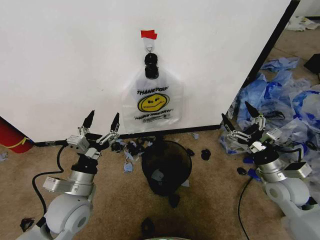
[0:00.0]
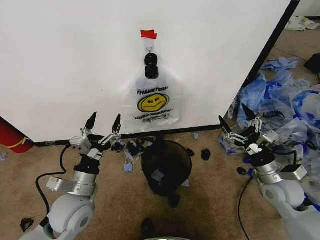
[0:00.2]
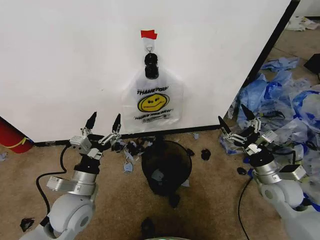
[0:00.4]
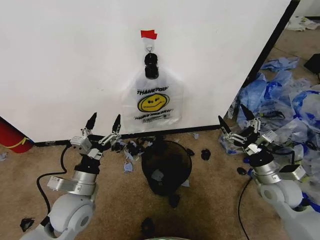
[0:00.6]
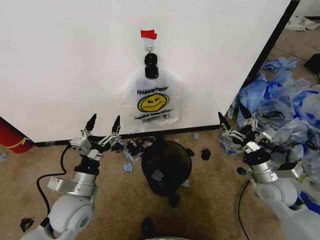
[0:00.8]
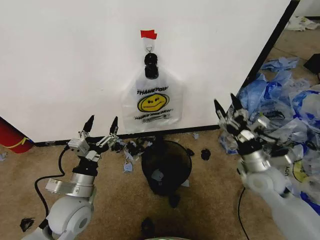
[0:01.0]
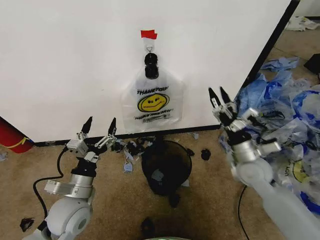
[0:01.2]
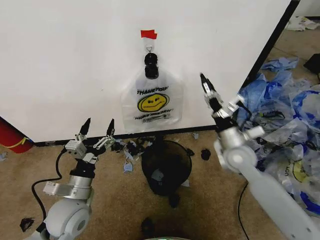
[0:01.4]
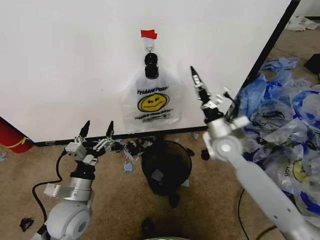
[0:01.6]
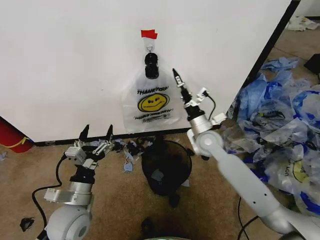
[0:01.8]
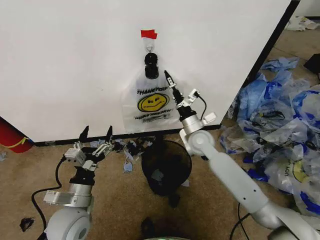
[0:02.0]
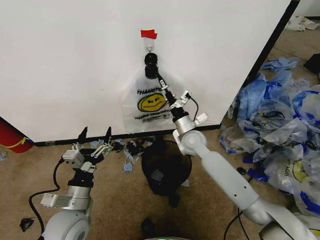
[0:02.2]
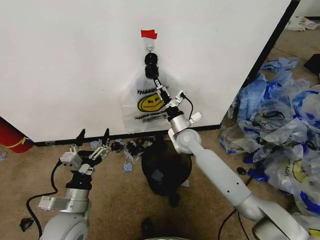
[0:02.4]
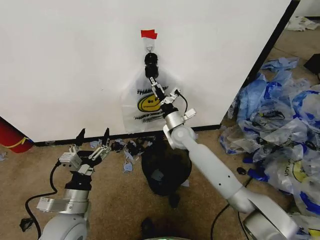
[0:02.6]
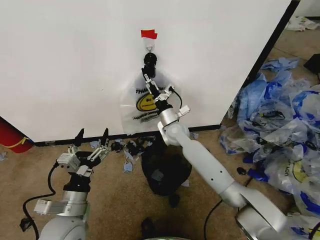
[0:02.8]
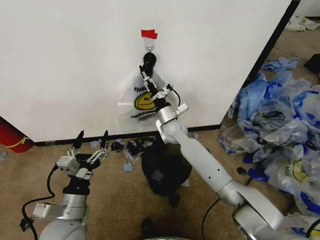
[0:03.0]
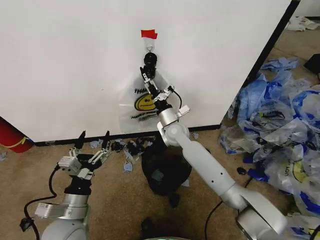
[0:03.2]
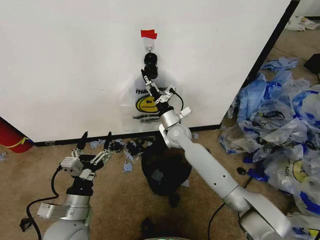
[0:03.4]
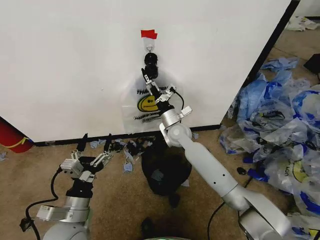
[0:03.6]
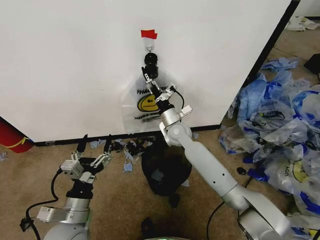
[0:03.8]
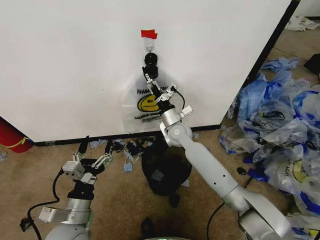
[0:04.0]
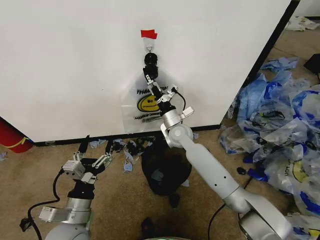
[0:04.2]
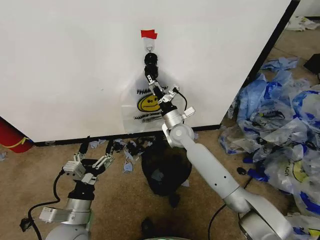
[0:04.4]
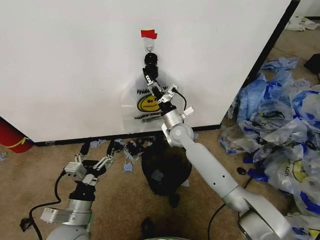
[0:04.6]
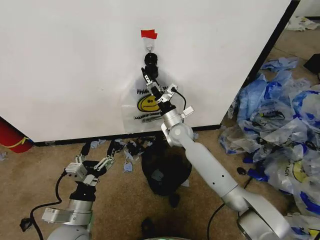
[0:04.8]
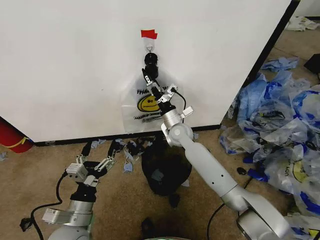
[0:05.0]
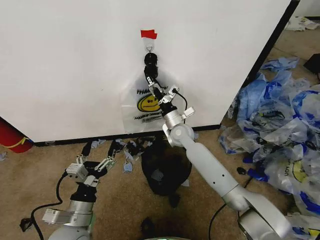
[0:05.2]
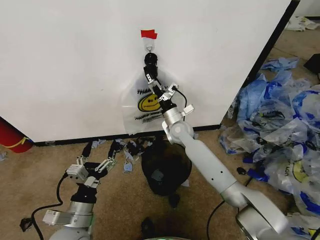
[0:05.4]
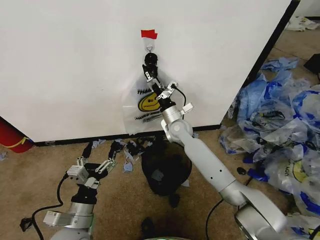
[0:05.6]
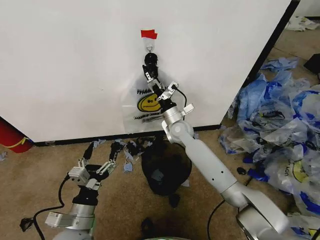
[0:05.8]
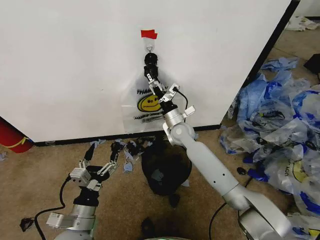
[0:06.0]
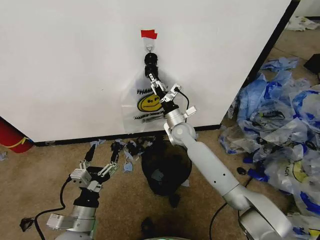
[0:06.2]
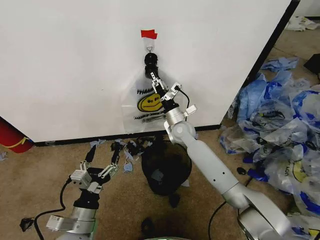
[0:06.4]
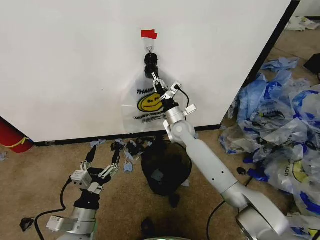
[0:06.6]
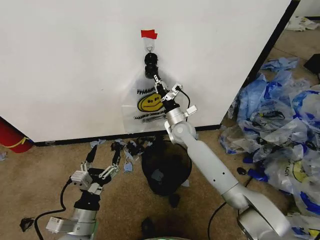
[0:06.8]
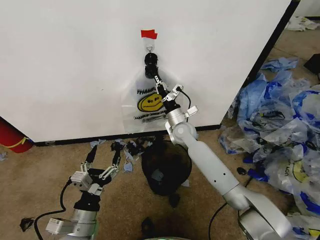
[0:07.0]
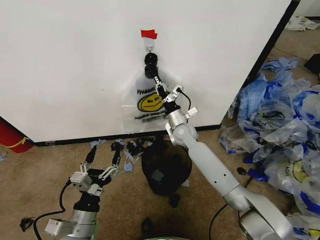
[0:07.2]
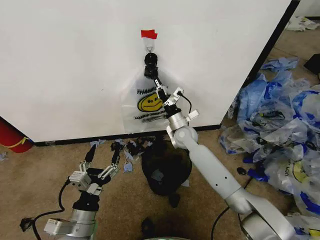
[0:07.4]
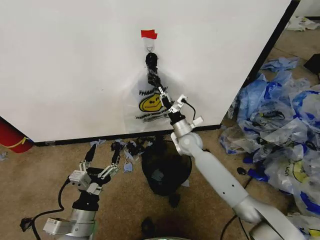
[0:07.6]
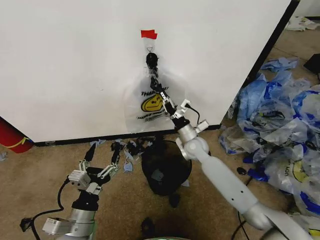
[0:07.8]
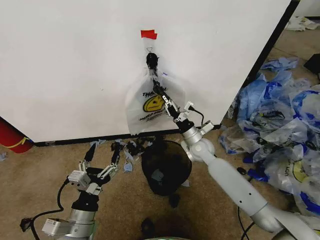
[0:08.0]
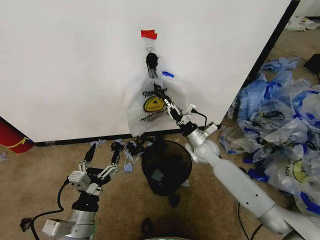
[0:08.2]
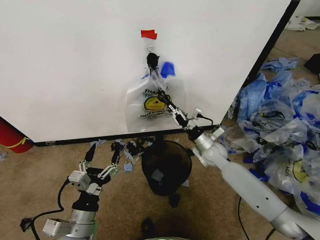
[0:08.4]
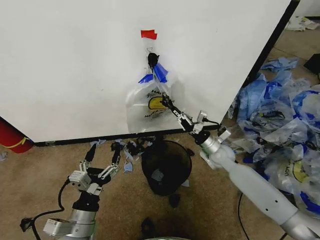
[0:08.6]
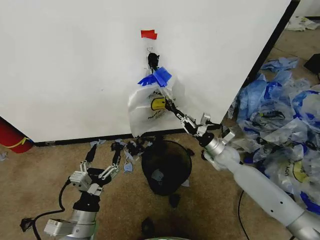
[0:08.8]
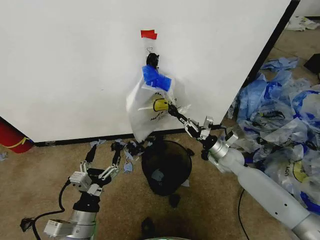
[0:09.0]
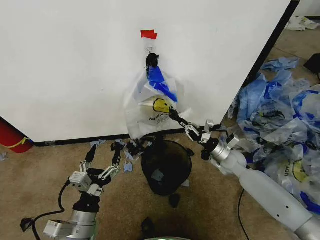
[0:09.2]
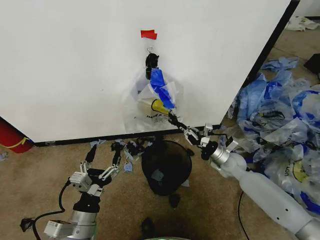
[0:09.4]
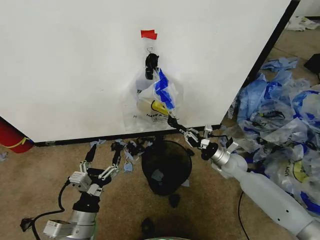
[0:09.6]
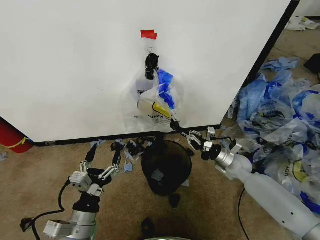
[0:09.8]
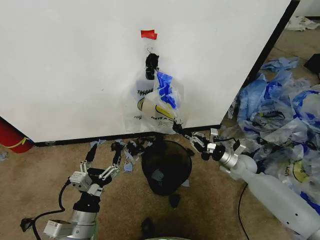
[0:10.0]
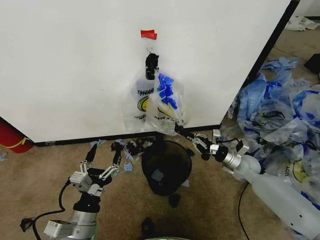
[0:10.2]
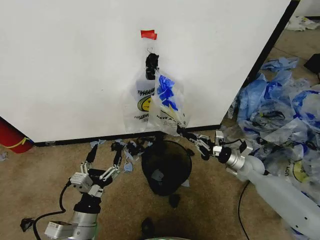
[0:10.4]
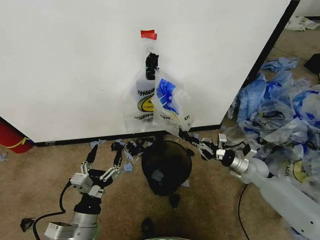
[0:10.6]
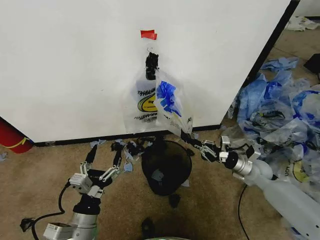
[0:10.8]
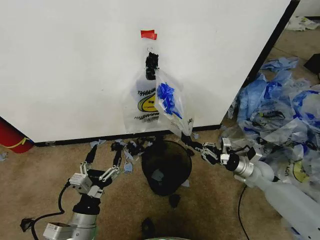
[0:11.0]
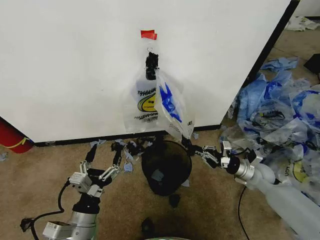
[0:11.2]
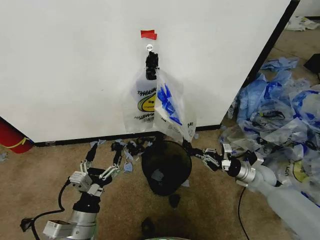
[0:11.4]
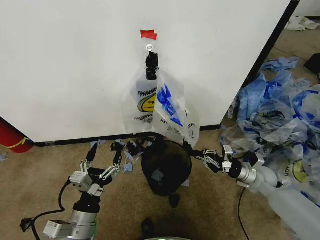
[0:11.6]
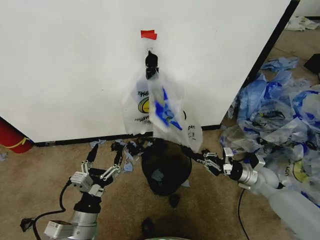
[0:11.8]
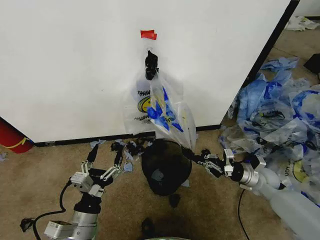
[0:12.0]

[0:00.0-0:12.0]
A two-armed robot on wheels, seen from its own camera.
Task of the whole recording: Pick up the garbage bag from the wall and place it over the trash bin.
0:01.6 to 0:03.0: The right gripper shifts about 20 cm to the left and forward.
0:03.0 to 0:06.0: The grippers move only a little.
0:06.0 to 0:07.6: The right gripper closes up.
0:07.6 to 0:09.0: The right gripper shifts roughly 15 cm to the right.
0:09.0 to 0:10.4: The right gripper is displaced to the right by about 5 cm.
0:10.4 to 0:12.0: The right gripper shifts by approximately 5 cm.

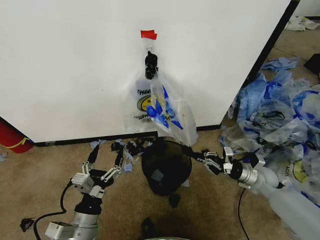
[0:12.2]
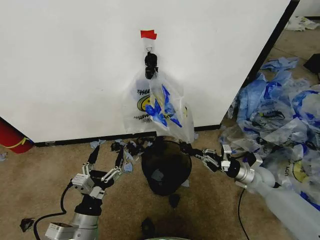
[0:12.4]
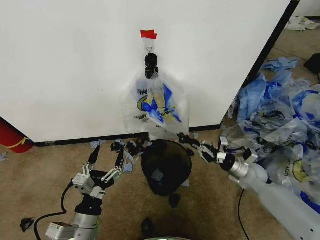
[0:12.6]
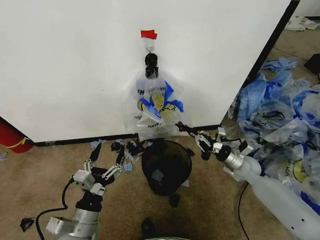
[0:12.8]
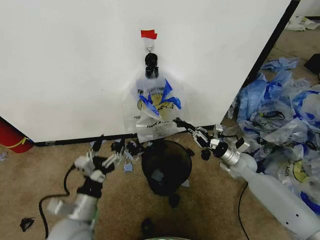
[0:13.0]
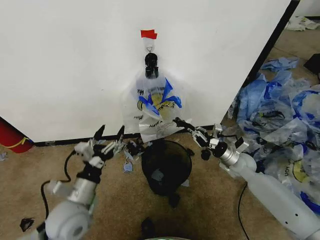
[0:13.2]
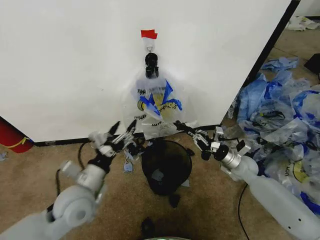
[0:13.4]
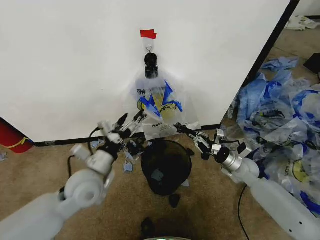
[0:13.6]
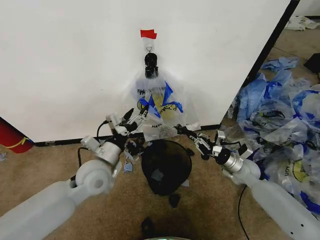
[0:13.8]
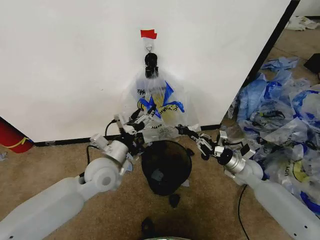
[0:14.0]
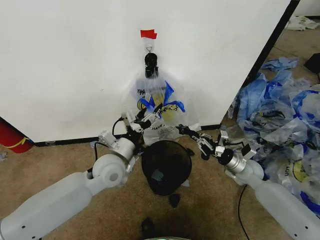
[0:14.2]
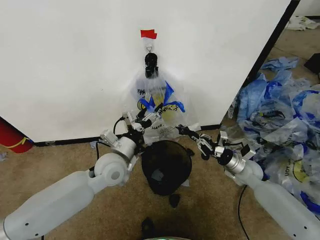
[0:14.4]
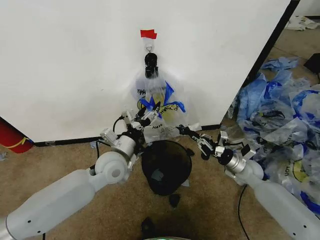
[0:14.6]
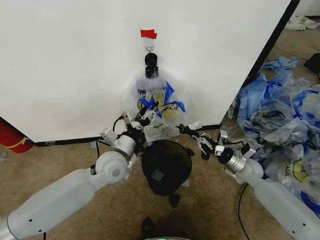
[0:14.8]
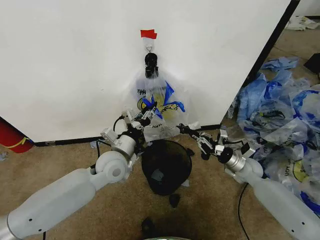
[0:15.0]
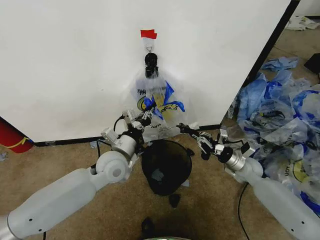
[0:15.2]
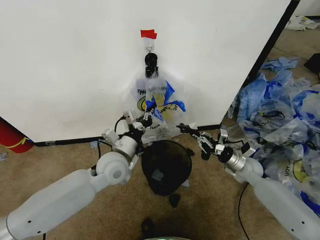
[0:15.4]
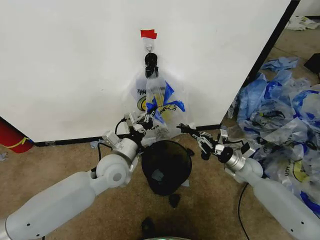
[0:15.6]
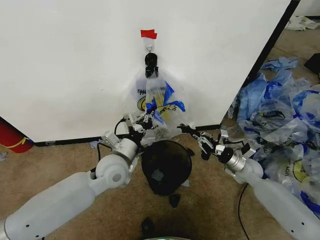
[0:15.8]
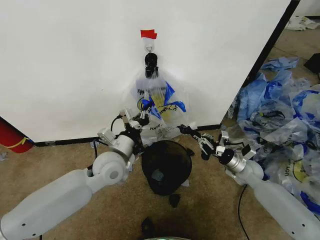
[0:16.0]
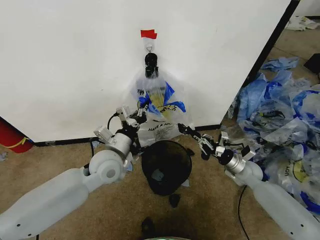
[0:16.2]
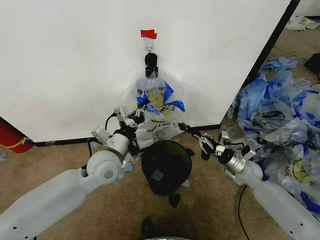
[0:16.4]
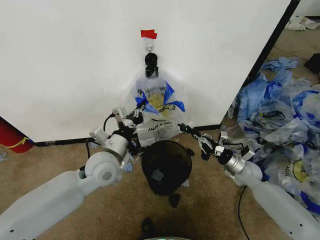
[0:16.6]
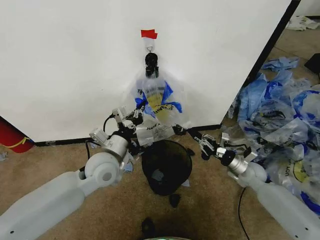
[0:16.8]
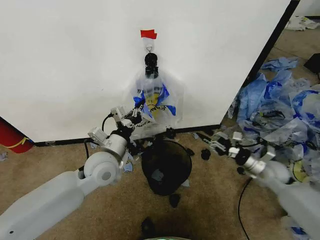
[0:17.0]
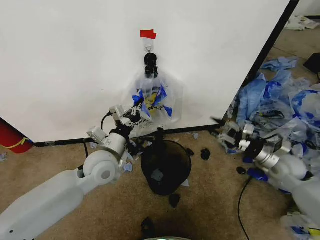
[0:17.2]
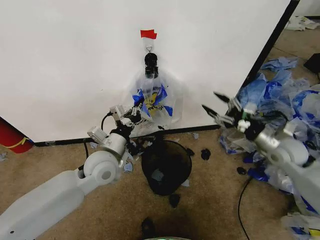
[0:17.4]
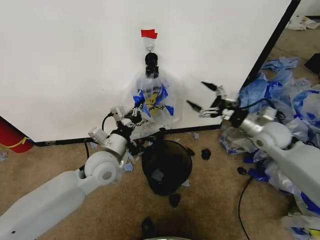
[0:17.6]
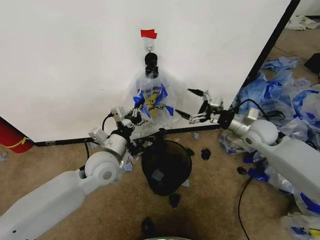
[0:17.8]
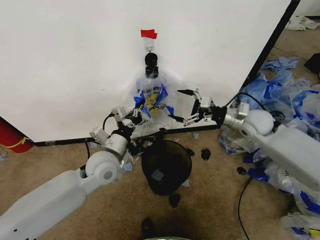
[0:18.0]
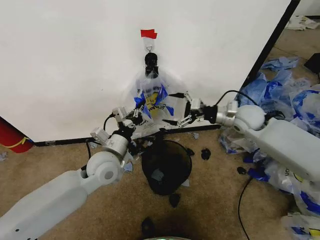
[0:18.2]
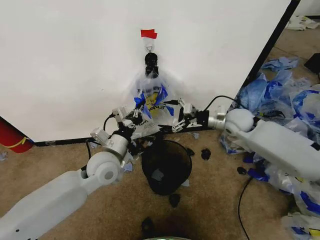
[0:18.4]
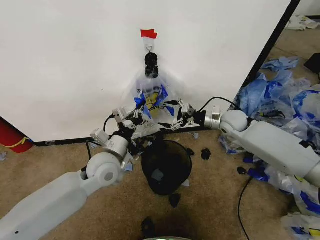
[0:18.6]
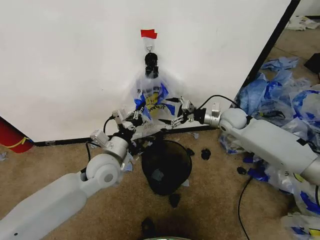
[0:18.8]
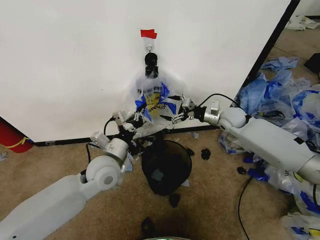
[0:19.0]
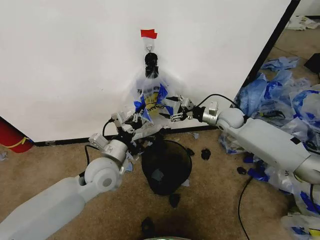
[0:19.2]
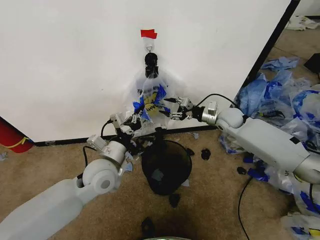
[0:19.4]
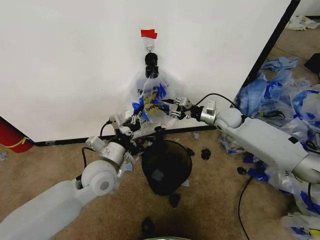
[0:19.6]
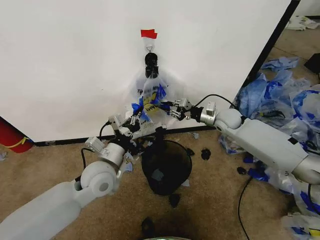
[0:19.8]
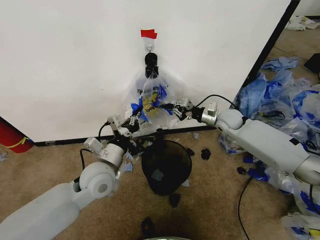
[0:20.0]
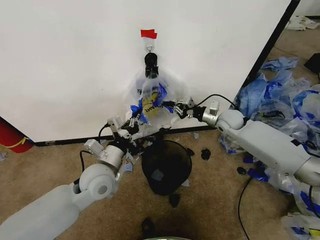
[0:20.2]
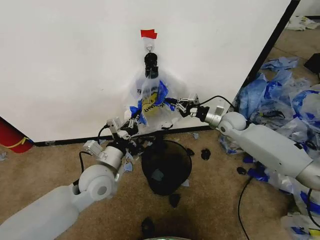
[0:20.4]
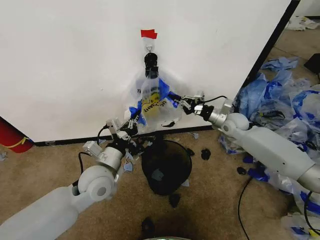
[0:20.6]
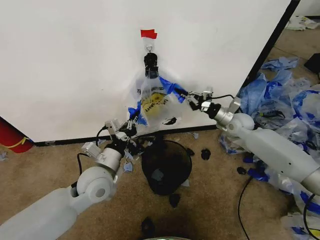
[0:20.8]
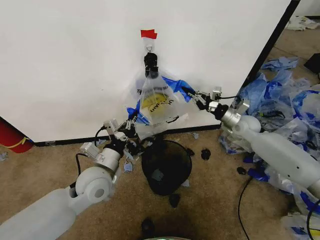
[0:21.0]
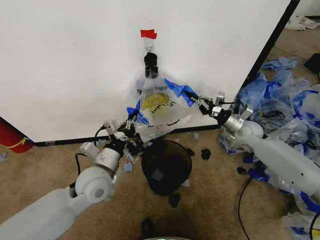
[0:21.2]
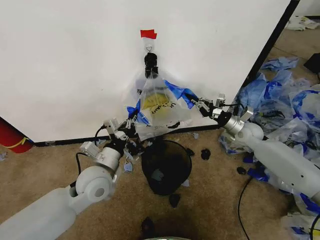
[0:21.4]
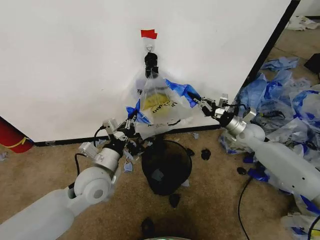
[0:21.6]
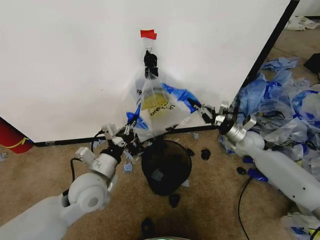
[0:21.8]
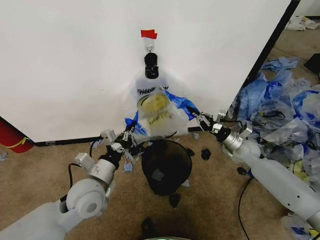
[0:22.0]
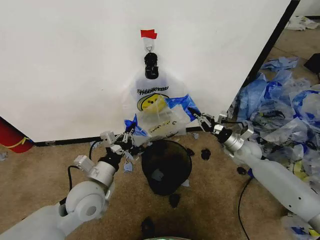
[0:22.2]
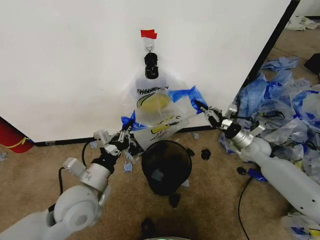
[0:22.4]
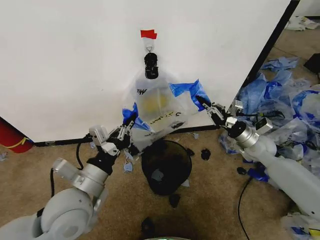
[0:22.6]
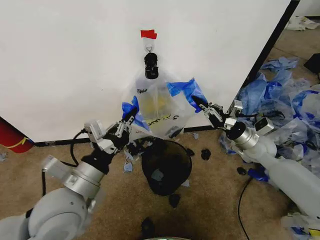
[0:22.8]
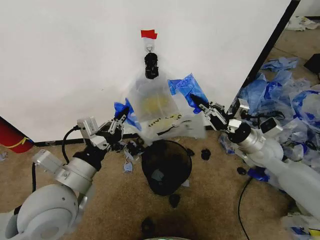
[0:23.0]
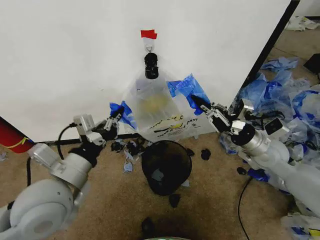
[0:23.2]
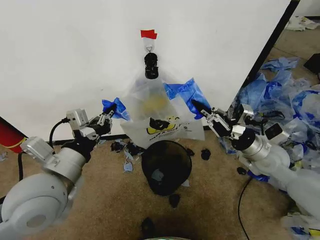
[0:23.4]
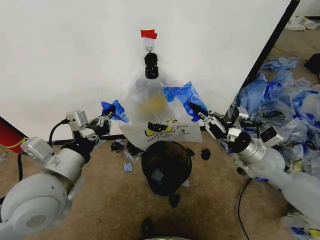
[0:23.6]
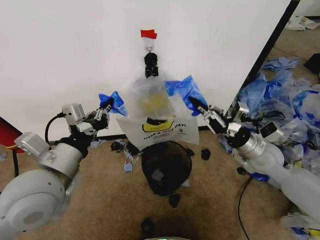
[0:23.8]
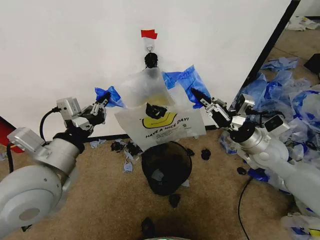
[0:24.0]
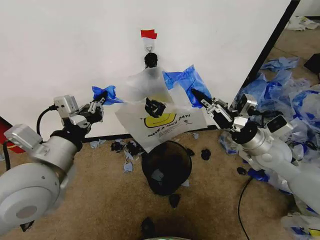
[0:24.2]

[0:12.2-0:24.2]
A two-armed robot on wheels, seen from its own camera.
Task of the whole recording: Pick up the garbage bag from the wall and place it over the trash bin.
0:12.2 to 0:13.8: The left gripper shifts some 20 cm forward and upward. The right gripper moves to the left, approximately 5 cm.
0:13.8 to 0:15.2: The left gripper shifts by roughly 5 cm, and closes up.
0:15.2 to 0:16.6: The grippers move only a little.
0:16.6 to 0:18.2: The right gripper travels upward and forward by about 25 cm, and opens its fingers.
0:18.2 to 0:19.8: The right gripper heads downward and forward, covering about 10 cm, and closes up.
0:19.8 to 0:21.2: The right gripper heads to the right, covering approximately 10 cm.
0:21.2 to 0:22.6: The right gripper heads backward, covering roughly 10 cm. Meanwhile the left gripper goes some 10 cm backward and upward.
0:22.6 to 0:24.2: The left gripper travels upward by about 10 cm, while the right gripper heads backward and upward, covering some 10 cm.
